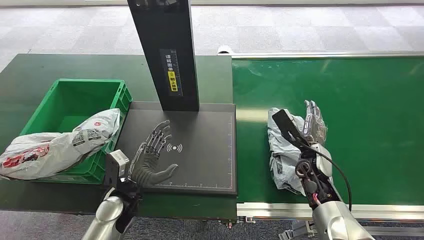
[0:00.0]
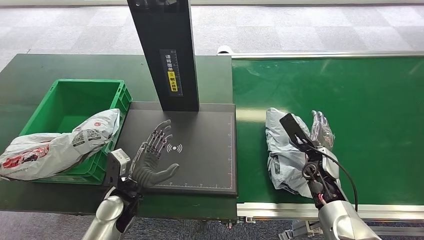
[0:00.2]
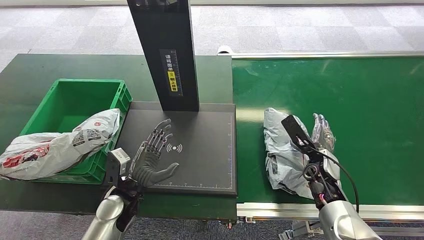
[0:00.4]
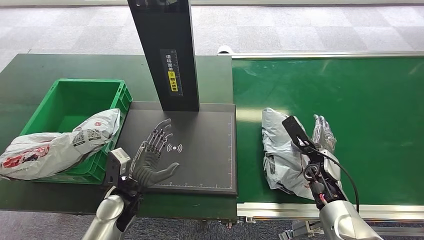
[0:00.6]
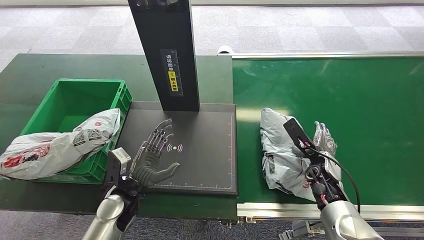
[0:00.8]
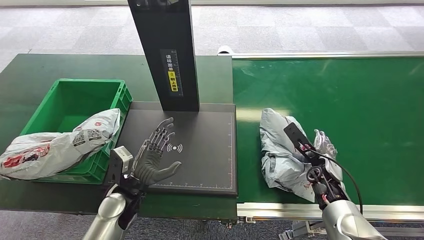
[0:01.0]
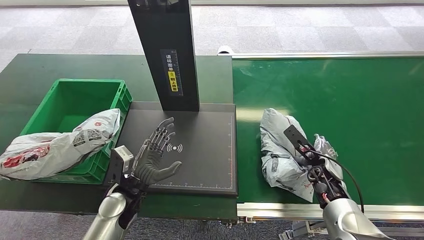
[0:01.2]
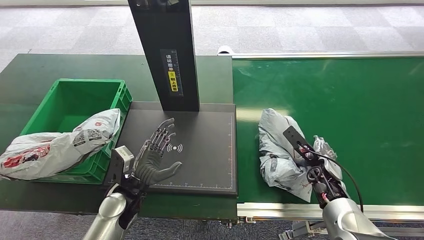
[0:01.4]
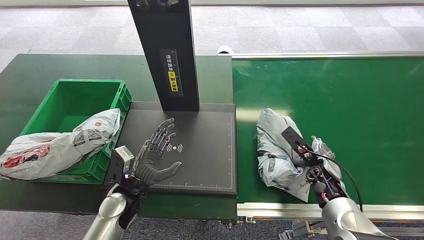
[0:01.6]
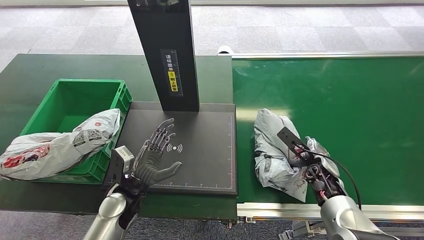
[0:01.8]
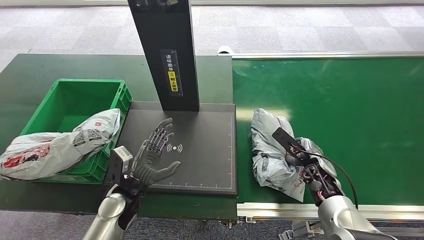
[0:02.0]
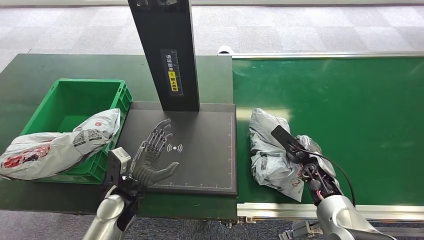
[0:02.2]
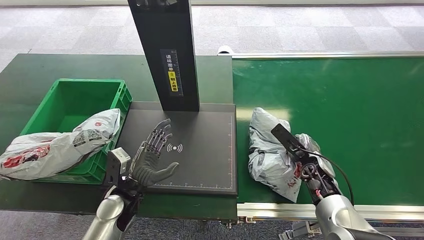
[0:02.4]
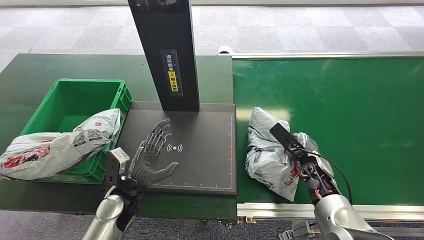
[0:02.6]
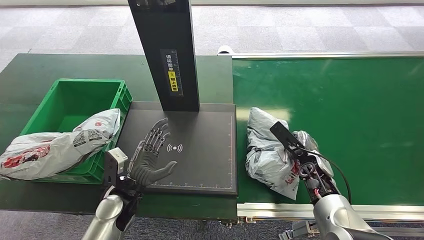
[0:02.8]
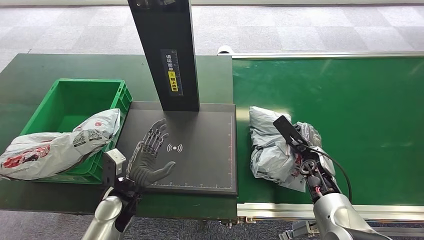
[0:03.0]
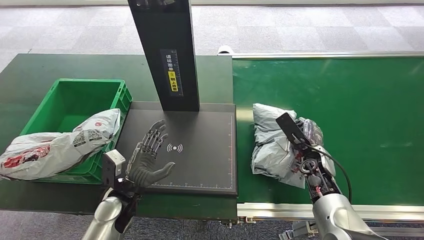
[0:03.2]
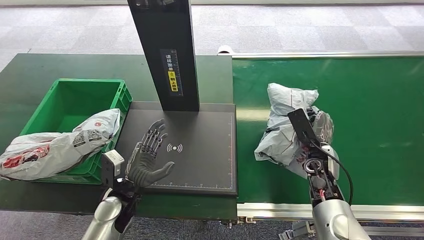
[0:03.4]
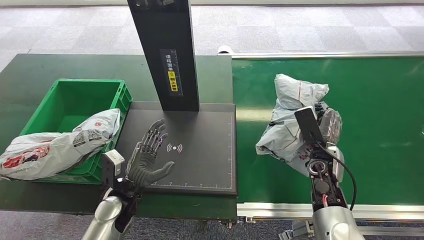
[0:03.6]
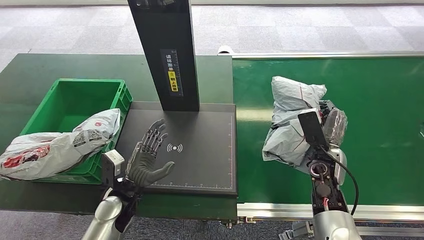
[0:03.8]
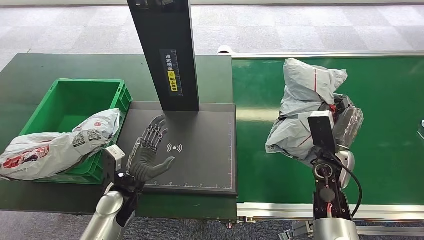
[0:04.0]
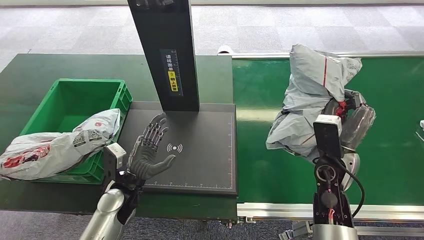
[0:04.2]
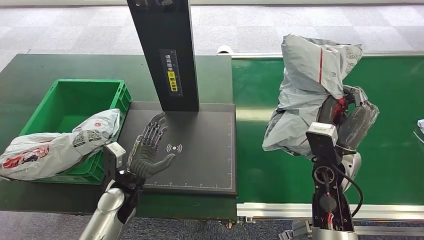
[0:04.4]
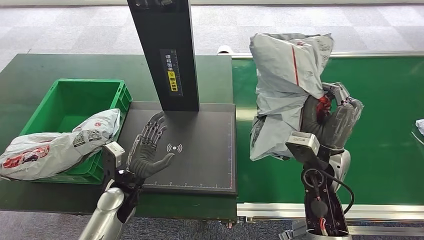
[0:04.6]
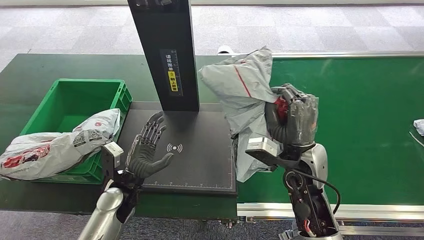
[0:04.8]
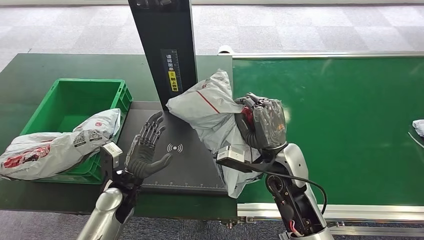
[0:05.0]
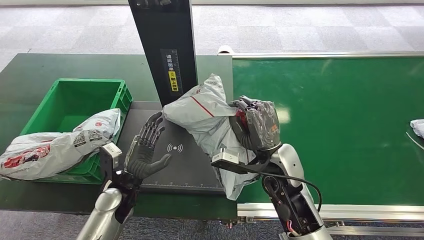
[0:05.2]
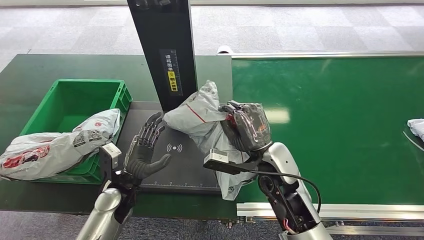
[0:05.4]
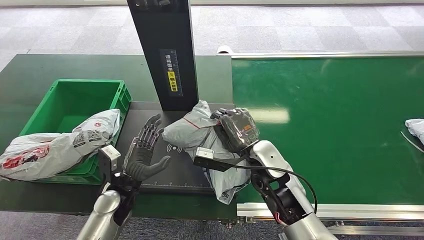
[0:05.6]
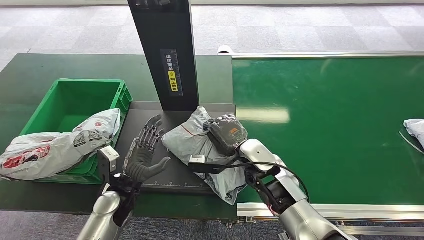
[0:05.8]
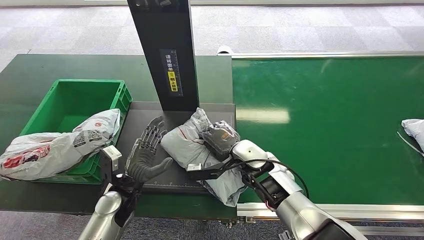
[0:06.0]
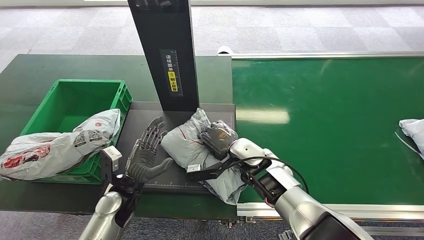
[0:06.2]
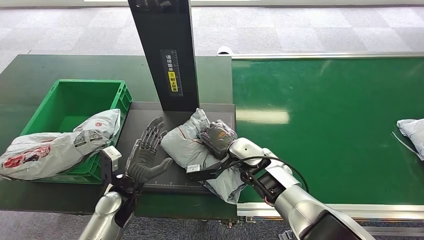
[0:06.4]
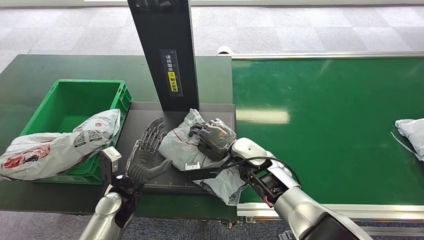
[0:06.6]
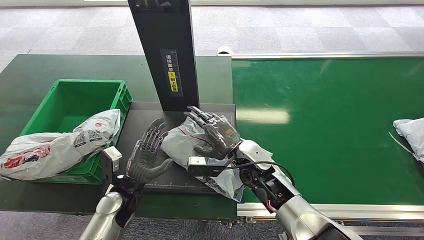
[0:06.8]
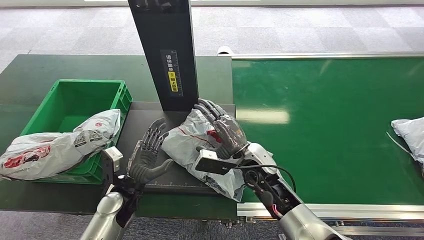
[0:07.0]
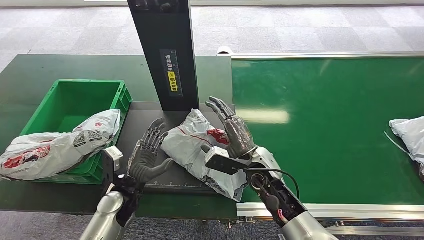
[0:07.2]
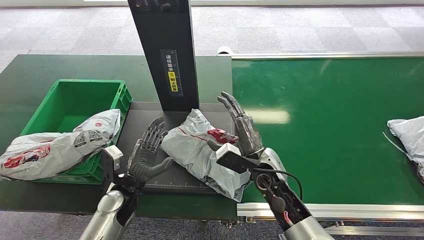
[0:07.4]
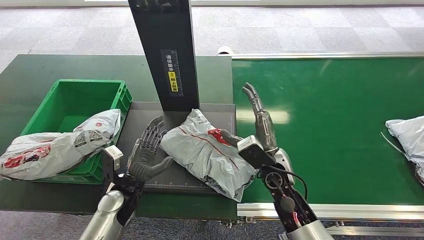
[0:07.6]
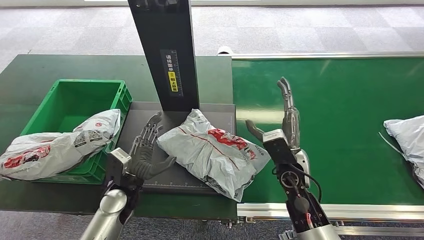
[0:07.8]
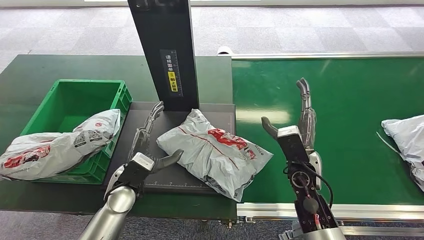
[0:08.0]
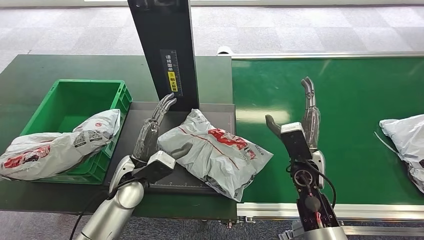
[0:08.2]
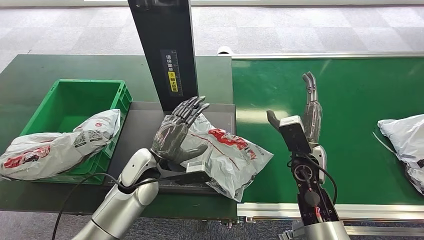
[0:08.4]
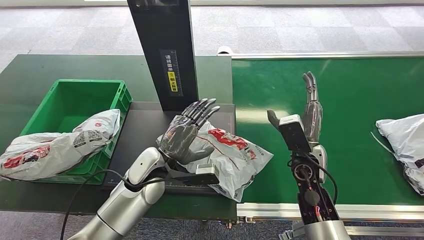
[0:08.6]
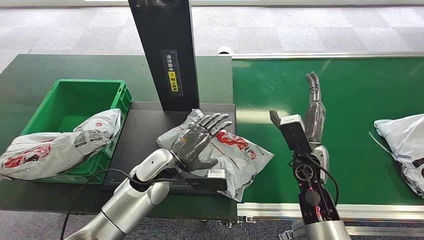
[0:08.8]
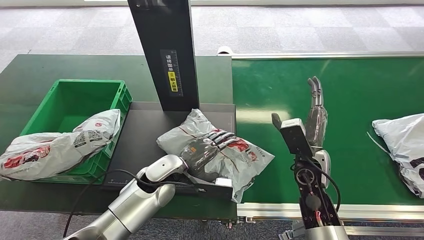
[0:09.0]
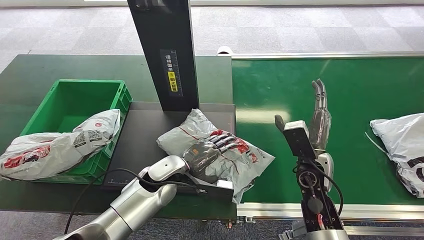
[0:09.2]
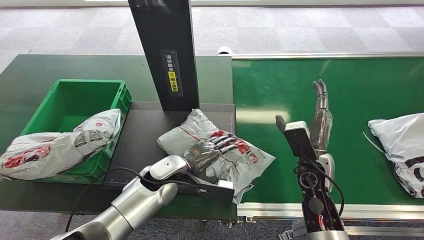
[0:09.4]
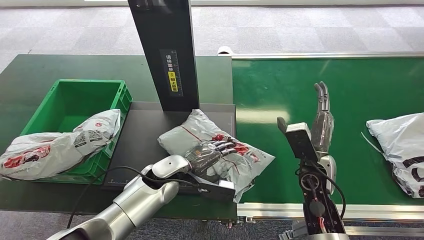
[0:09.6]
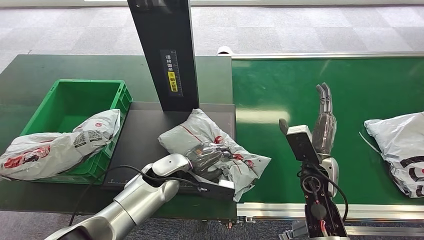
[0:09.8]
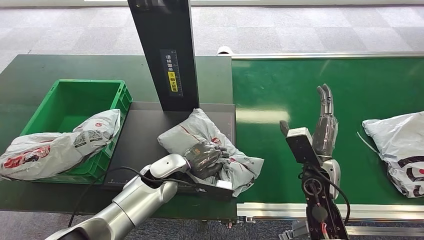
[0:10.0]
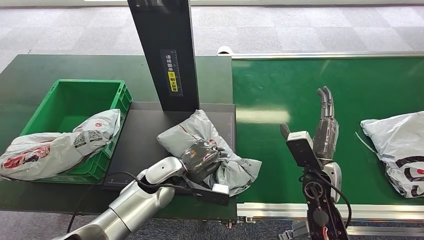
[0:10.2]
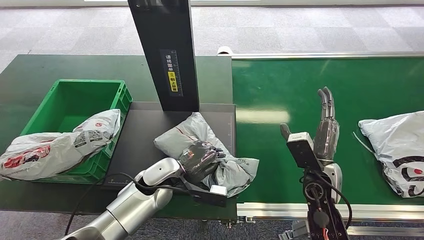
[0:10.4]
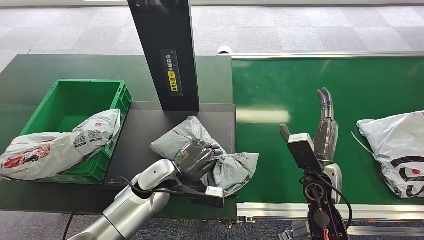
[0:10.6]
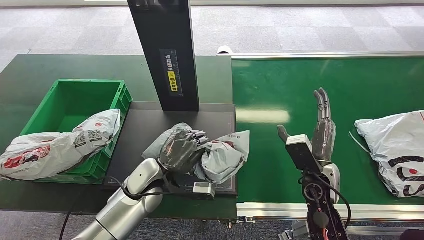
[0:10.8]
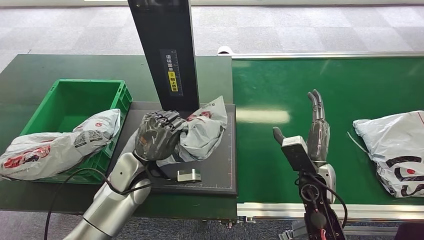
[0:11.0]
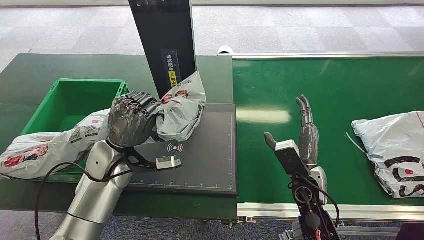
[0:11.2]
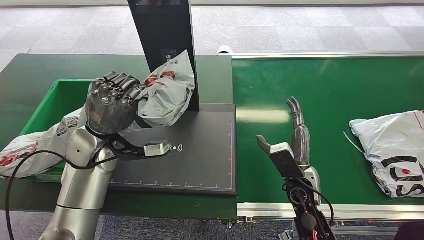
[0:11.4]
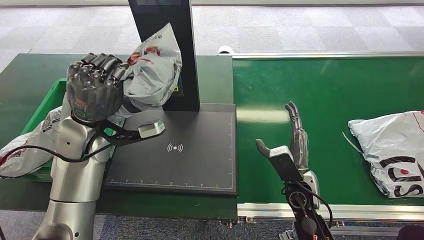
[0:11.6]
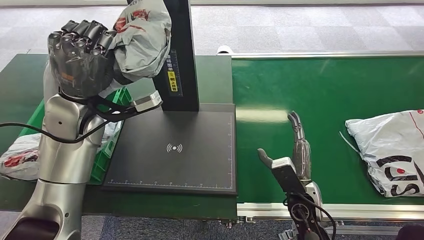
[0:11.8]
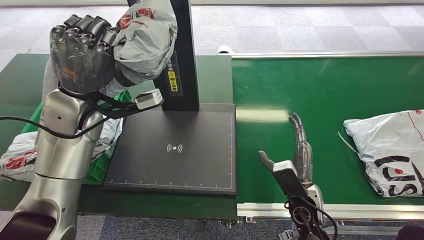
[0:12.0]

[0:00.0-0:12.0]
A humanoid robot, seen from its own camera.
Step, 0:00.0 to 0:03.6: Pick up the package from the conveyor belt.
Step, 0:04.0 to 0:07.2: Place the package onto the inbound machine.
Step, 0:07.4 to 0:11.0: Pick up the package from the inbound machine.
0:03.0 to 0:04.4: The right hand travels upward by about 10 cm.
0:06.0 to 0:07.6: The right hand changes place by about 5 cm.
0:07.6 to 0:09.0: The left hand goes roughly 10 cm to the right and upward. Meanwhile the right hand shifts about 10 cm to the right.
0:09.0 to 0:10.4: The hands stay close to where they were, moving slightly.

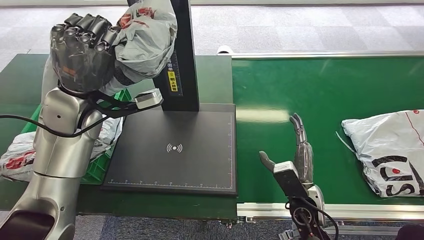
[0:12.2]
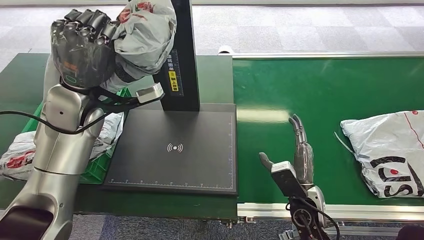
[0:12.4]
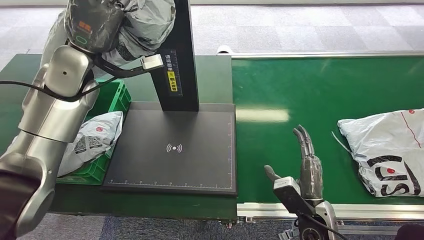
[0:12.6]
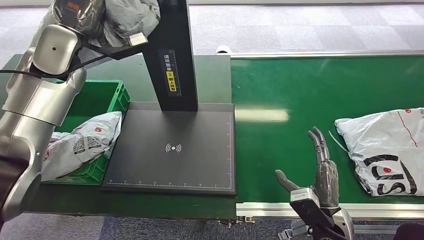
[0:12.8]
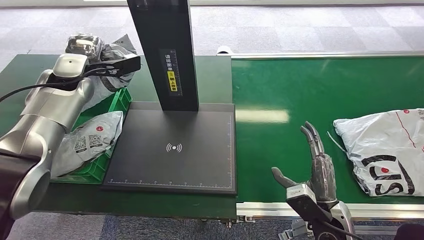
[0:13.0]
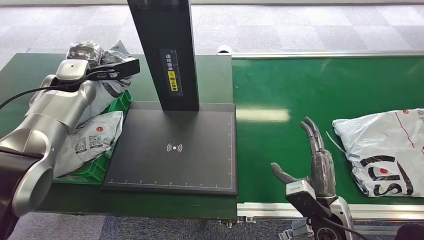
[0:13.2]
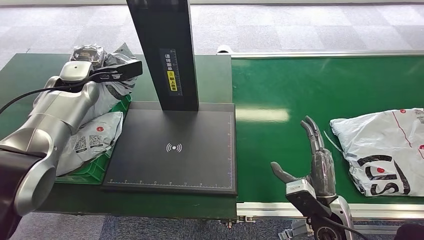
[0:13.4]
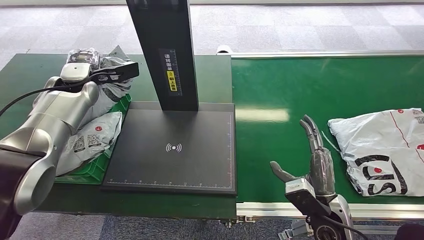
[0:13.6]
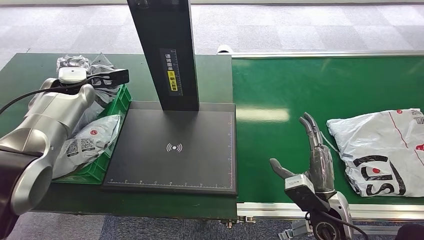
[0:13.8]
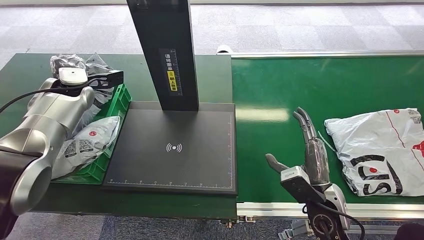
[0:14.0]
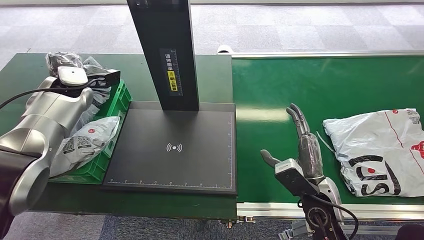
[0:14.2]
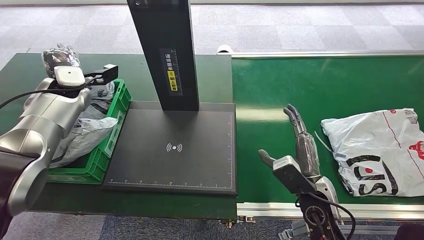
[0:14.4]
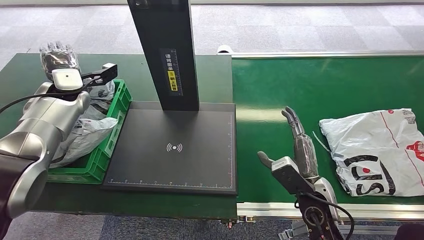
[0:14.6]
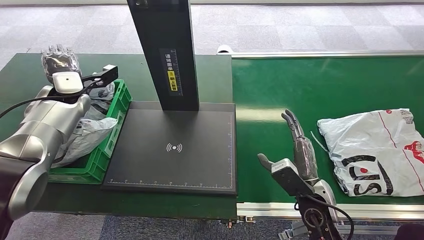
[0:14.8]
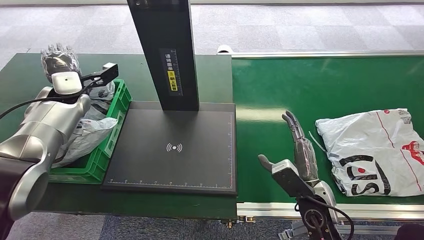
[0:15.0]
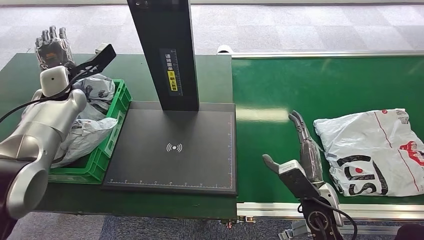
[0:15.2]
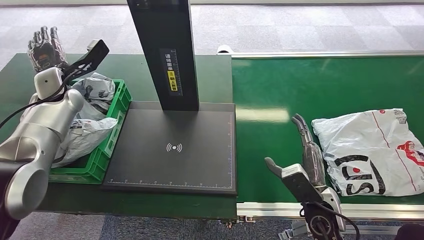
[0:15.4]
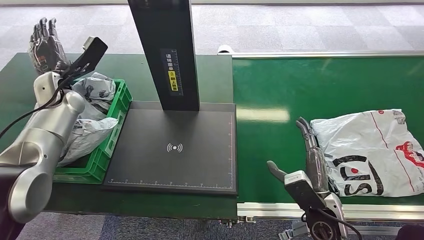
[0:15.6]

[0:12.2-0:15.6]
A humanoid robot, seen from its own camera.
Step, 0:12.2 to 0:15.6: Place the package into the parcel locker.
